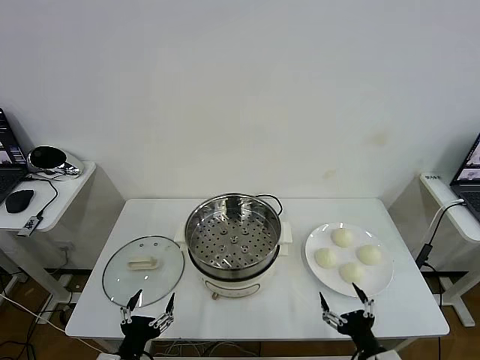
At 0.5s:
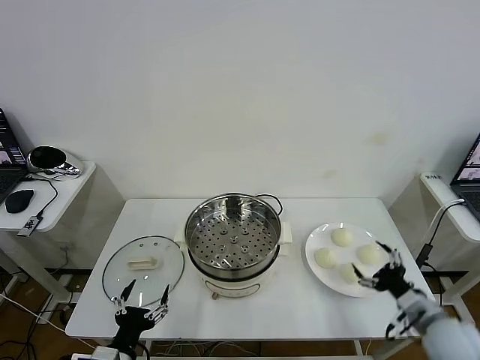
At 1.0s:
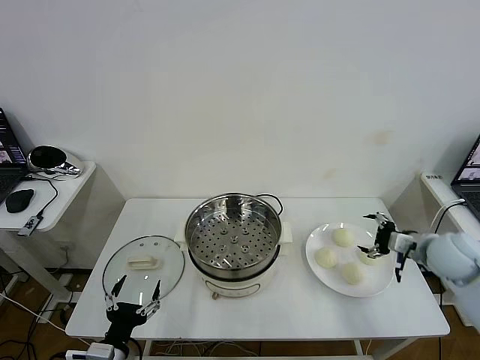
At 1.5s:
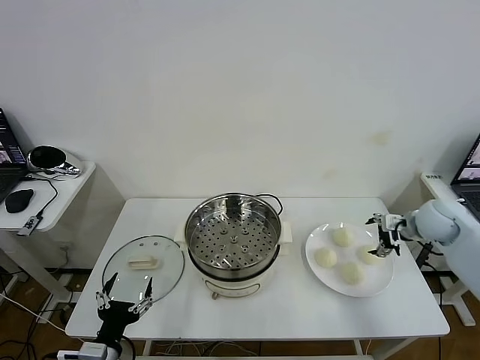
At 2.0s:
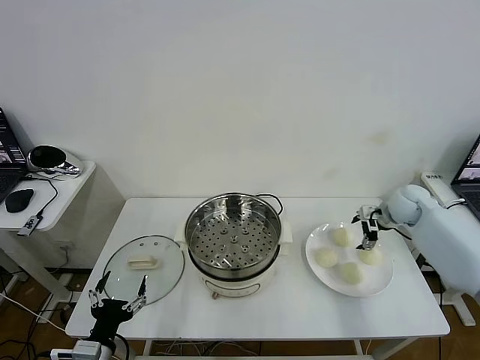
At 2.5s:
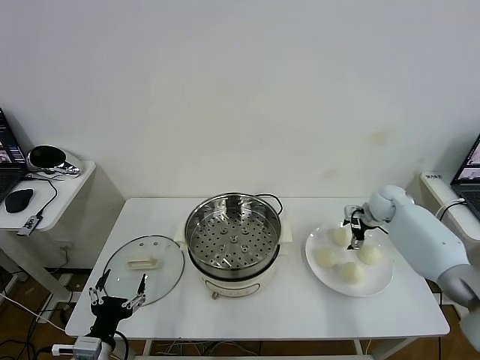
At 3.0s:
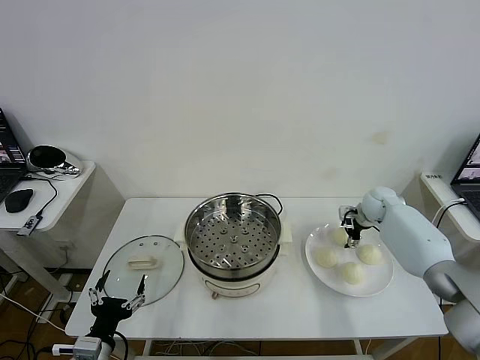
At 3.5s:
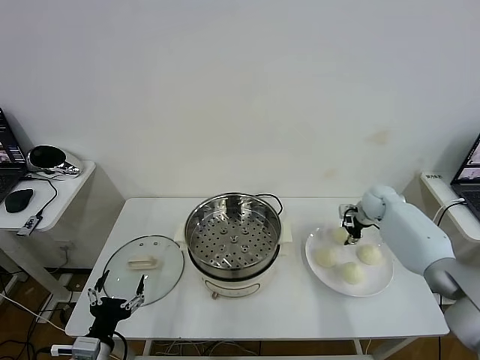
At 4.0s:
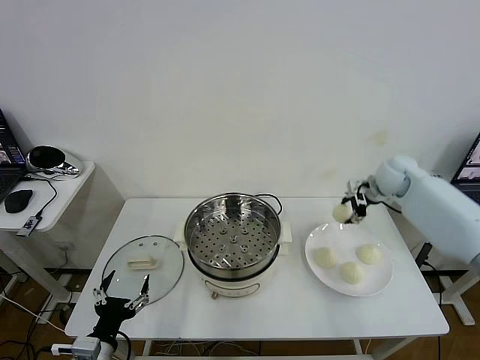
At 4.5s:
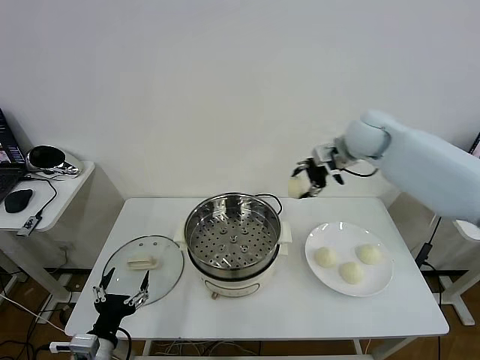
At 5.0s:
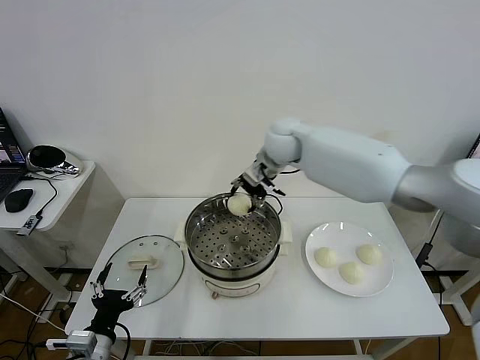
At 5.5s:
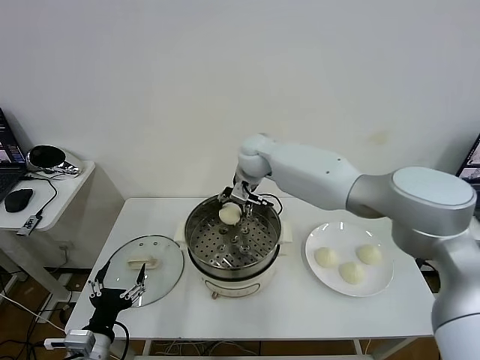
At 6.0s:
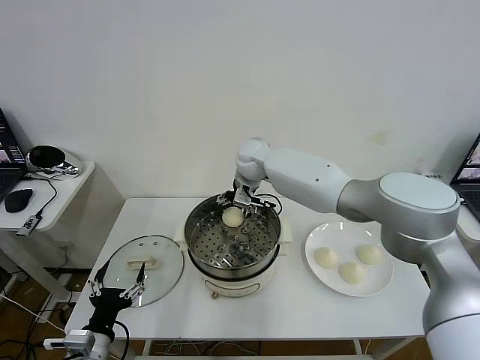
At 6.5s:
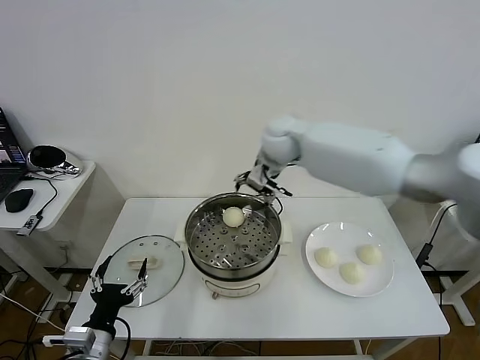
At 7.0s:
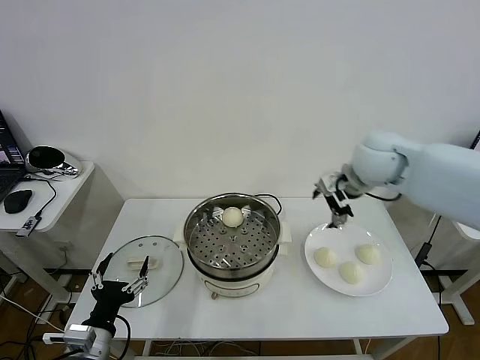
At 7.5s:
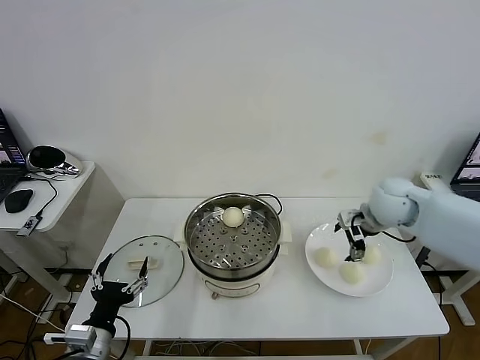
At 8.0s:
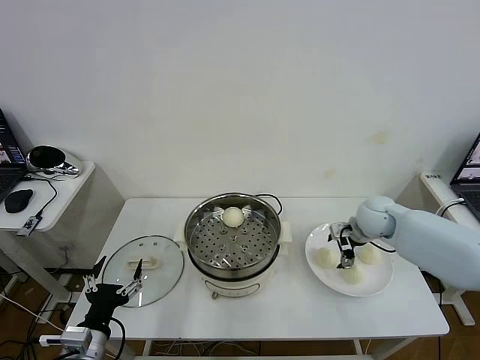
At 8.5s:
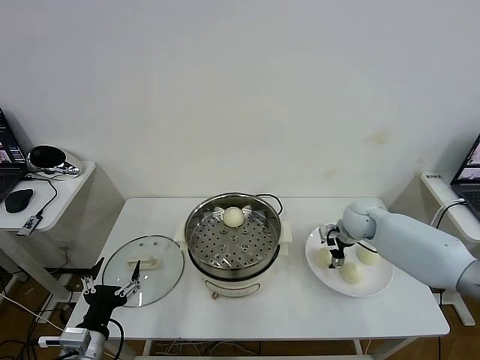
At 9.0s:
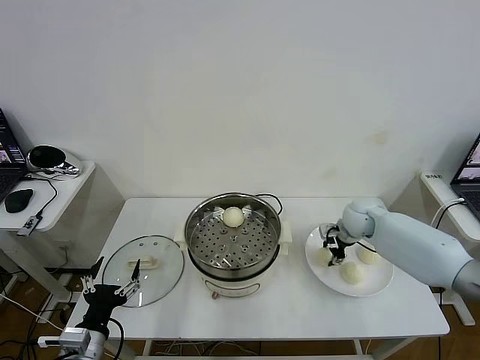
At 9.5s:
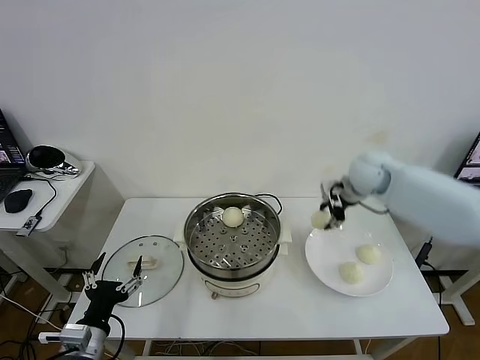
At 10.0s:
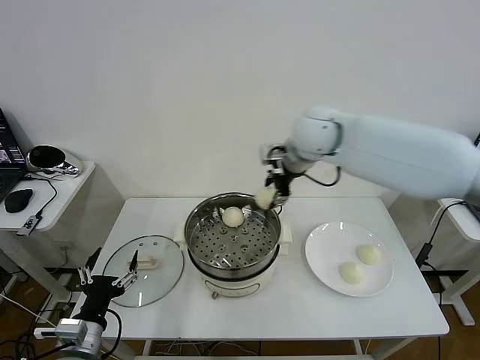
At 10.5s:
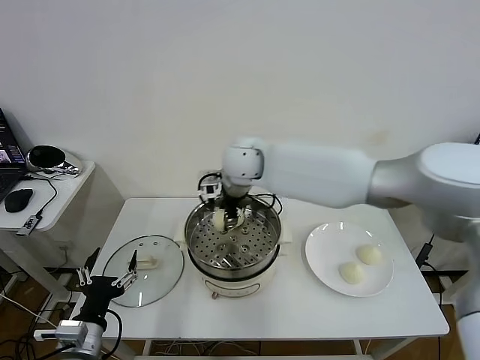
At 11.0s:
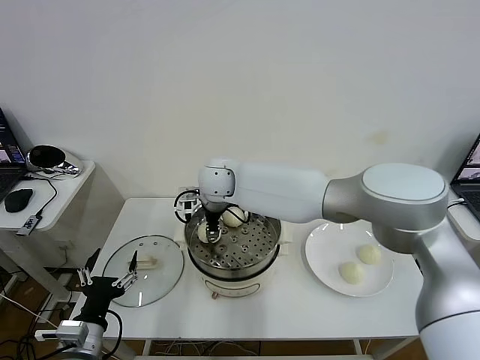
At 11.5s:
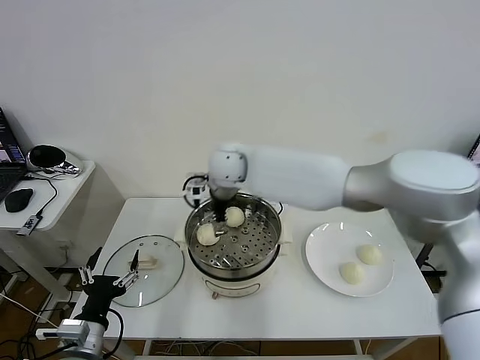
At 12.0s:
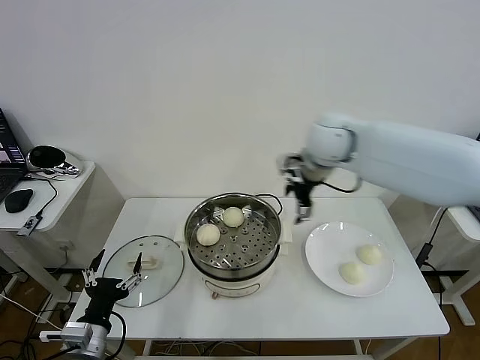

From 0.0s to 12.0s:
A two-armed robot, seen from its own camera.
Task of the whole recording: take steamed baozi put them in steamer then cover it.
Step, from 0.0s to 3.0s: Grasp the baozi in the plate with right gripper.
Step, from 4.0s to 6.0s: Place the baozi on the steamer with right gripper.
Step, from 6.5s to 8.5s: Grasp the baozi in the plate with right gripper.
Step, from 9.5s to 11.5s: Place the baozi on the steamer with right gripper.
From 2.0s to 4.0s: The right gripper travels upward and to the left by approximately 10 cm, and closes its fingers.
From 4.0s to 6.0s: The right gripper is displaced to the left by some 35 cm, and opens.
From 6.0s to 8.0s: The right gripper travels to the right by about 30 cm.
From 8.0s to 10.0s: The right gripper shifts about 30 cm upward and to the left, and closes its fingers.
From 10.0s to 12.0s: The right gripper goes to the left and returns, some 15 cm each way, and opens up.

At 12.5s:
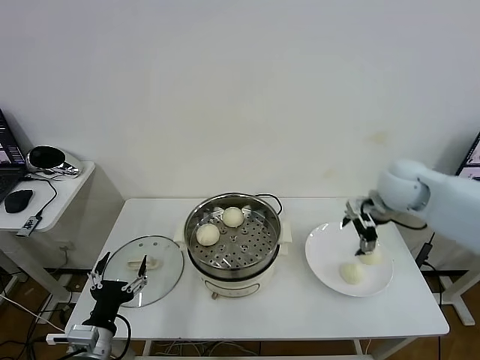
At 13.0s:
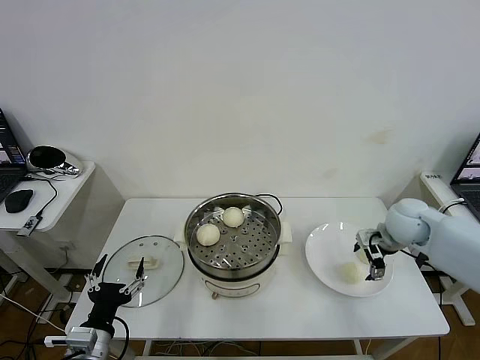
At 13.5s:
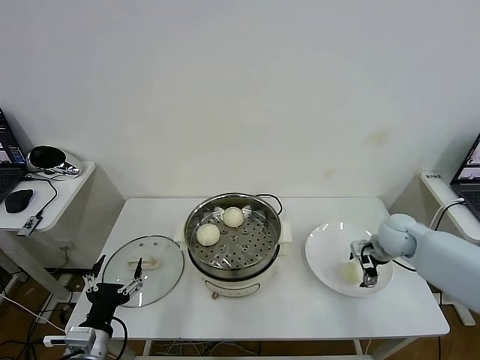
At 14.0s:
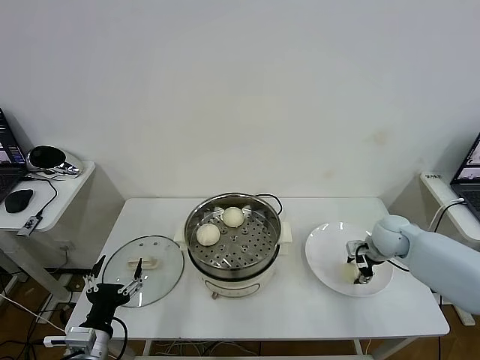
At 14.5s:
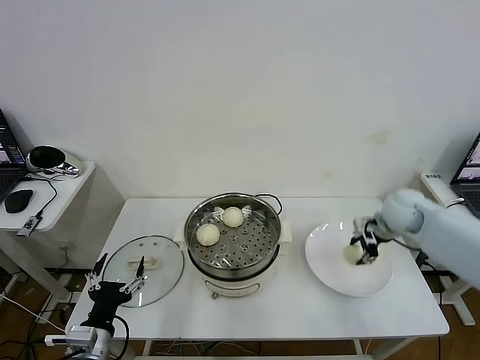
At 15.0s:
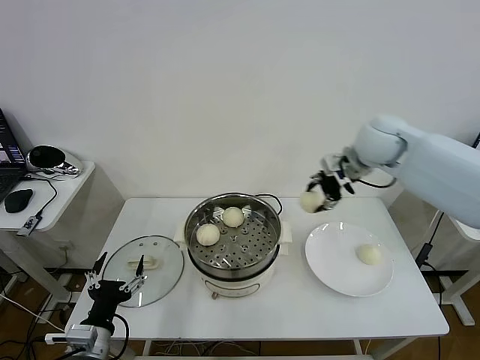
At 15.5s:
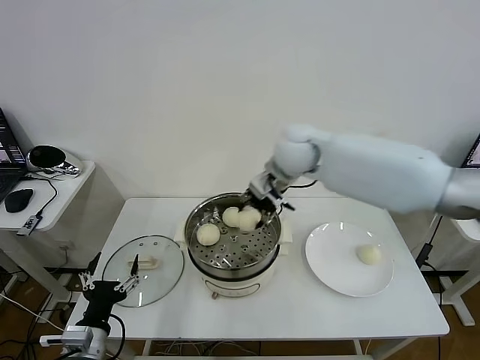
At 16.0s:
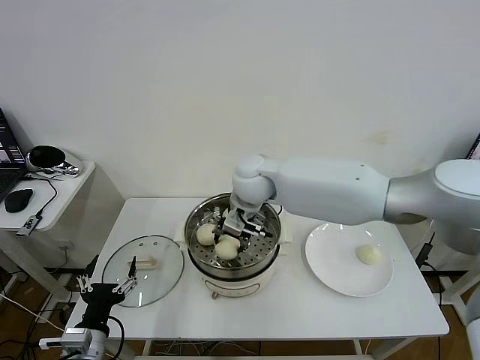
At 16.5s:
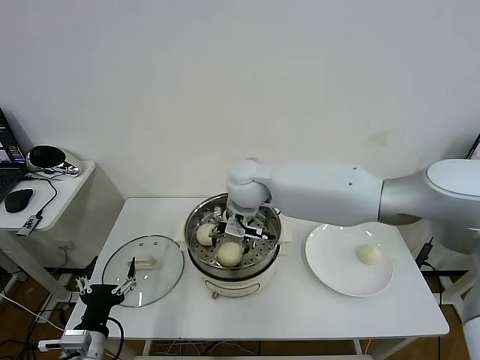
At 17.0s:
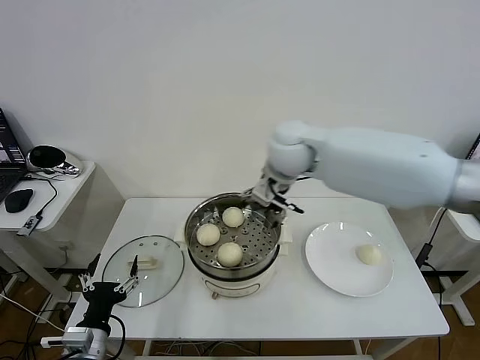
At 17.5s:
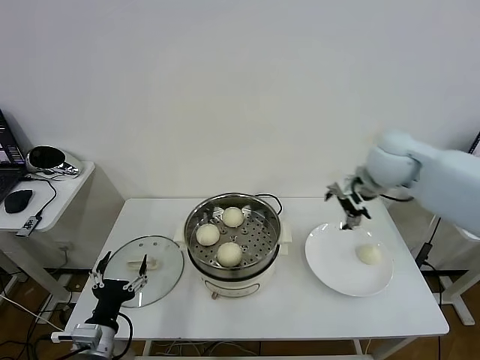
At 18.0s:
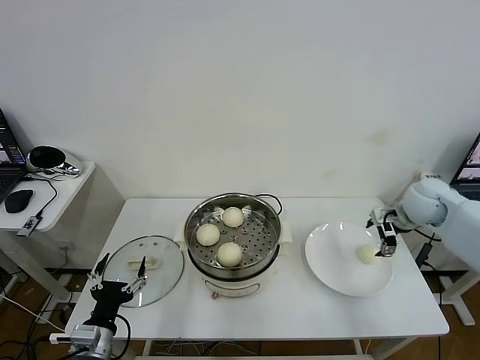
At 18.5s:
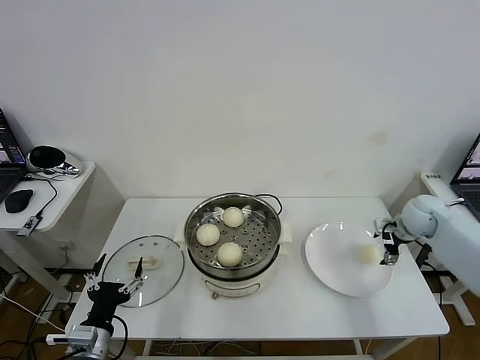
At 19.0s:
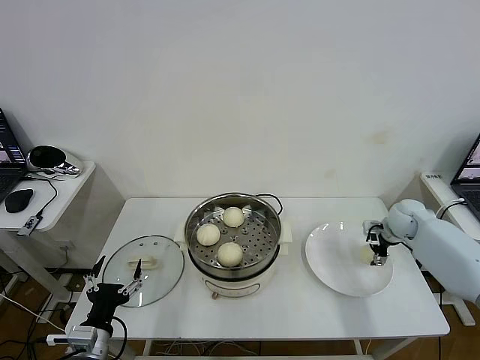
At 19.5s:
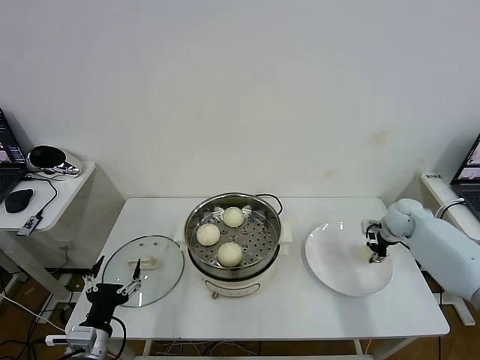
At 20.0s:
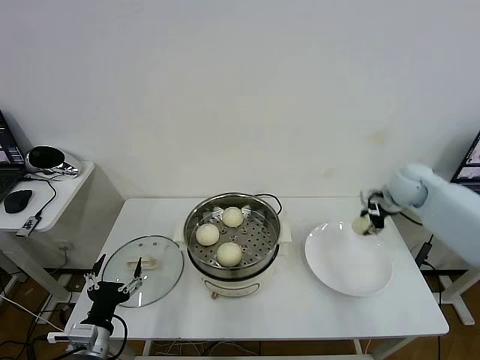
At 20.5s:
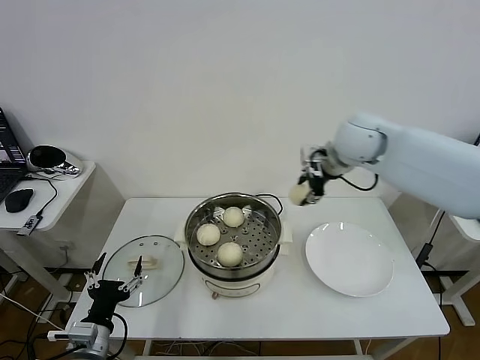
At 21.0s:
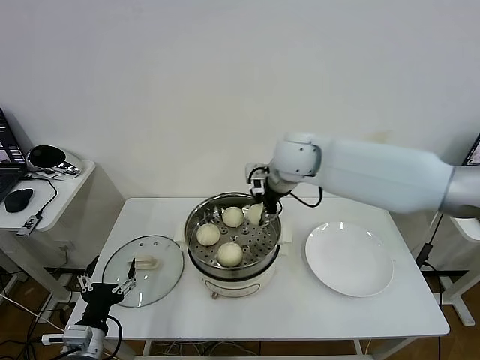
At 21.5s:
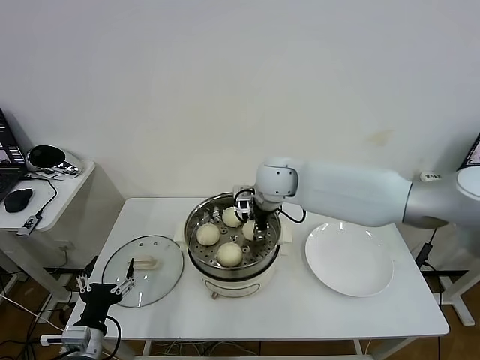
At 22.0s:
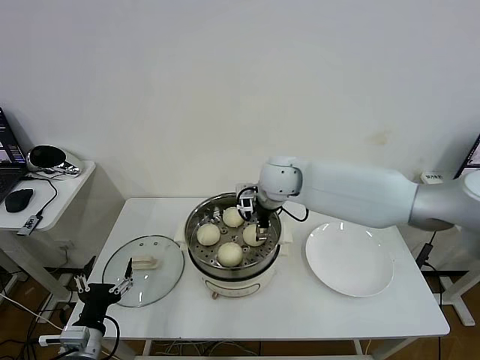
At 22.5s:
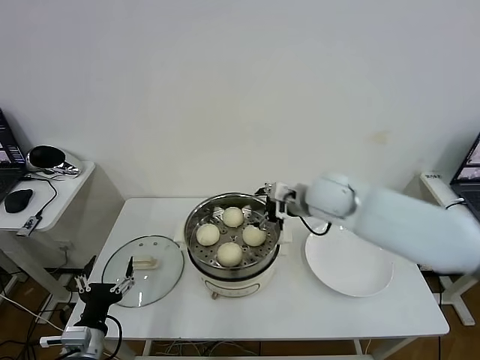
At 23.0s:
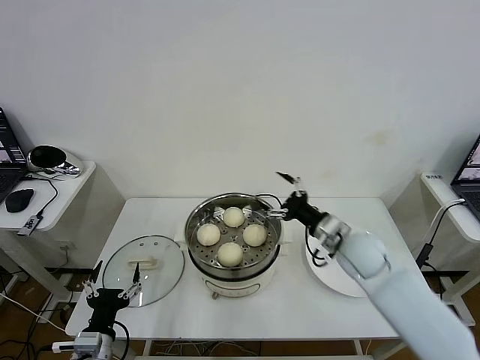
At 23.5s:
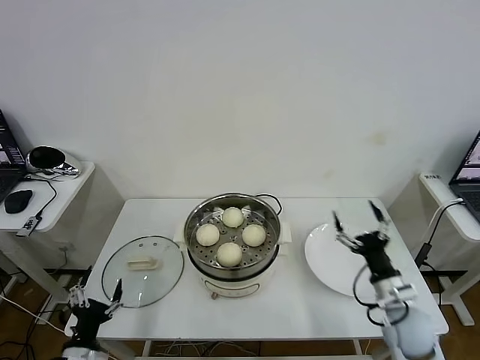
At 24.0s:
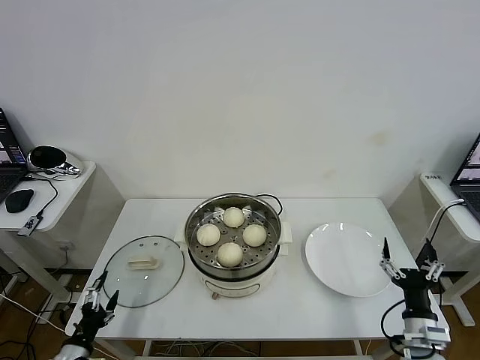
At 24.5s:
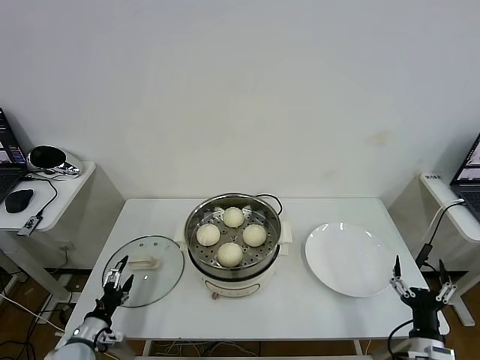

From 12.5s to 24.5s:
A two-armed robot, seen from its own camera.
Task of the whole recording: take steamed baozi put them in steamer then cover it.
Step, from 12.5s to 14.0s: Grasp the baozi in the plate with right gripper.
Step, from 14.5s to 16.5s: Place the baozi on the steamer with right gripper.
Step, from 17.0s to 19.5s: Grasp the baozi in the plate with right gripper.
Step, from 20.0s to 22.0s: Place the baozi on the steamer with right gripper.
From 12.5s to 14.5s: The right gripper moves downward, some 5 cm, and closes its fingers.
From 14.5s to 16.5s: The right gripper shifts about 35 cm to the left, and opens up.
From 16.5s to 18.5s: The right gripper travels to the right by approximately 40 cm.
From 18.5s to 20.5s: The right gripper moves to the left and upward, approximately 30 cm, and closes.
From 20.5s to 22.5s: The right gripper heads downward and backward, covering some 10 cm, reaches roughly 15 cm to the left, then returns, and opens.
From 22.5s to 24.5s: The left gripper travels downward, to the left and forward by approximately 15 cm. The right gripper goes approximately 40 cm backward, downward and to the right.

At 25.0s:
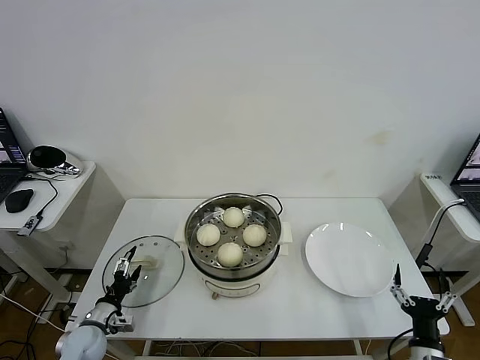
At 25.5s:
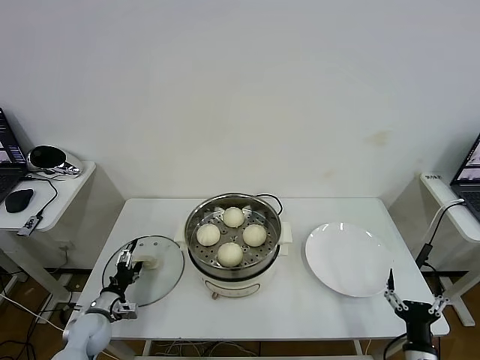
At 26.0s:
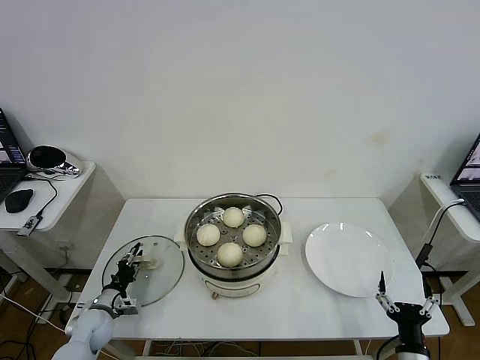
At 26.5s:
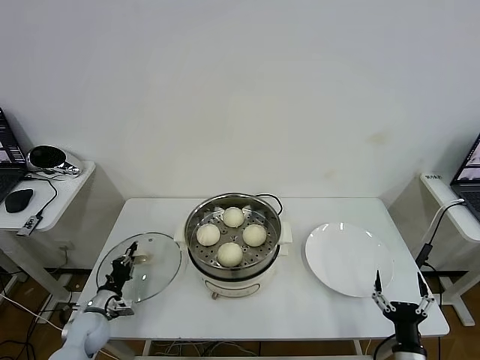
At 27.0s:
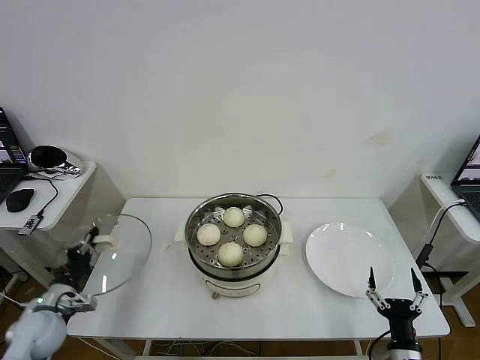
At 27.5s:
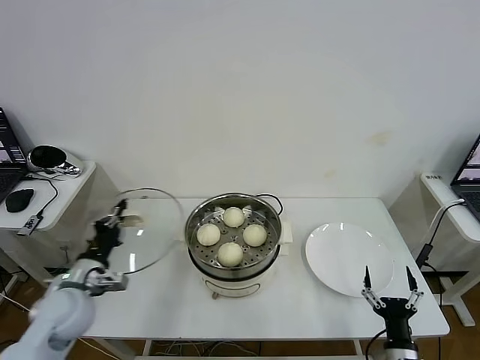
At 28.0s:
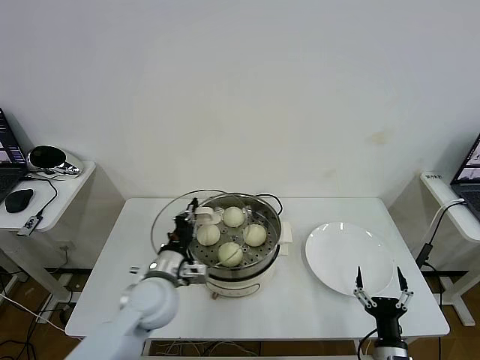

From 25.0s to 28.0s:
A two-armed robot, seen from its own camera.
Task of the whole recording: take steamed baozi put them in steamer then cover it.
From 25.0s to 26.5s: The left gripper closes.
From 26.5s to 28.0s: The left gripper heads to the right and upward, covering approximately 30 cm.
